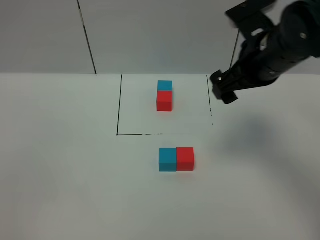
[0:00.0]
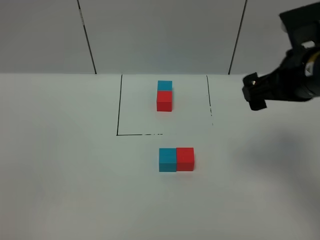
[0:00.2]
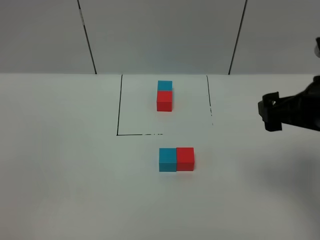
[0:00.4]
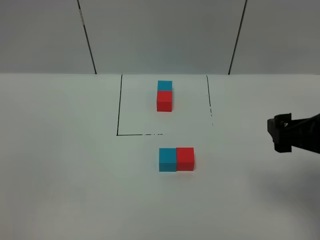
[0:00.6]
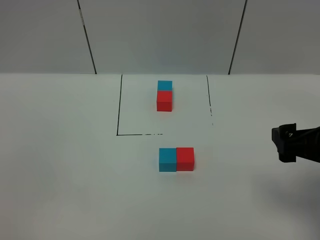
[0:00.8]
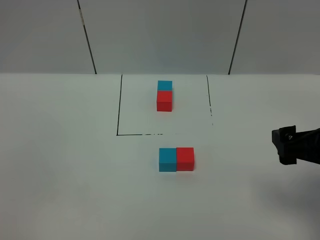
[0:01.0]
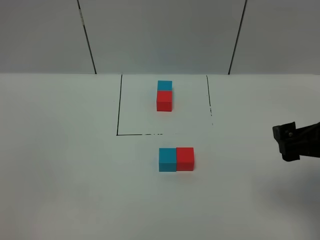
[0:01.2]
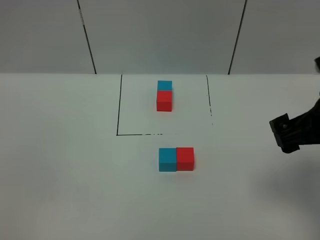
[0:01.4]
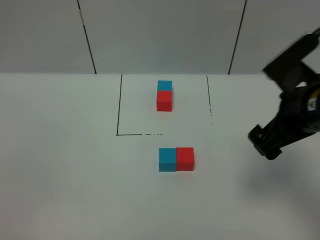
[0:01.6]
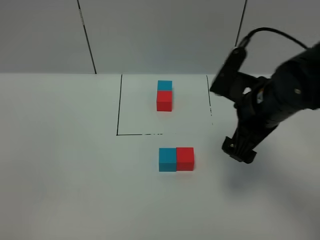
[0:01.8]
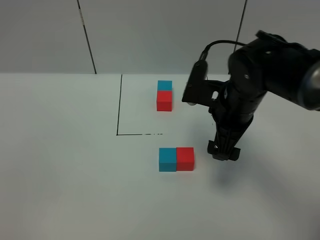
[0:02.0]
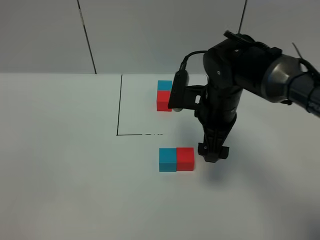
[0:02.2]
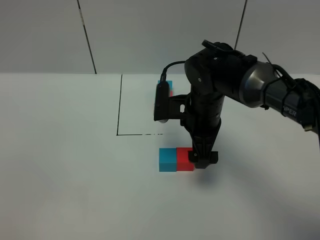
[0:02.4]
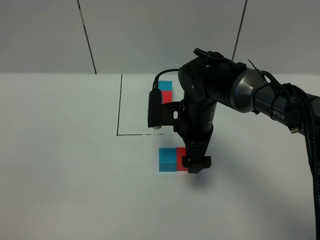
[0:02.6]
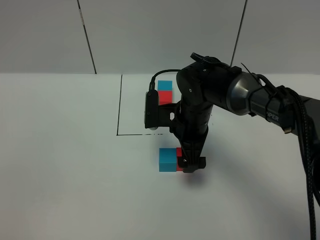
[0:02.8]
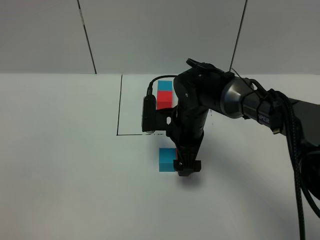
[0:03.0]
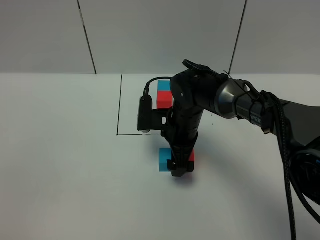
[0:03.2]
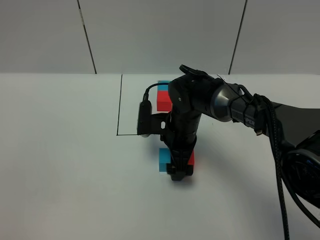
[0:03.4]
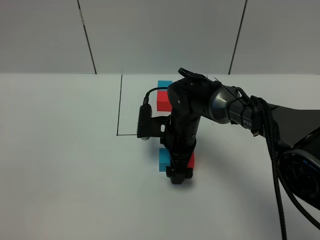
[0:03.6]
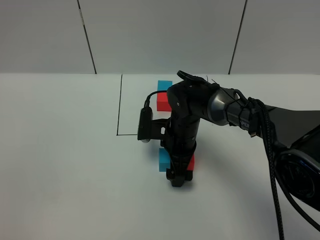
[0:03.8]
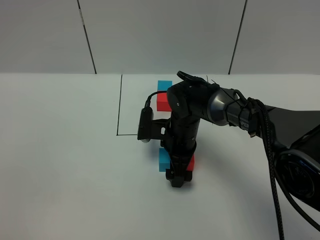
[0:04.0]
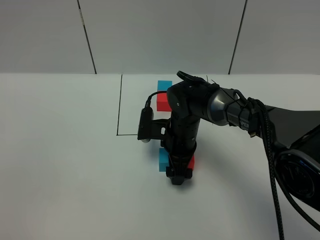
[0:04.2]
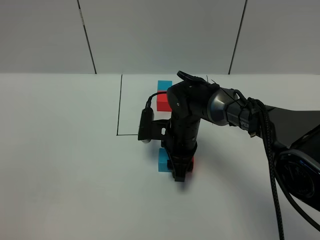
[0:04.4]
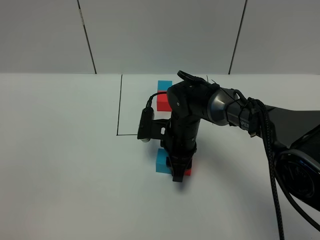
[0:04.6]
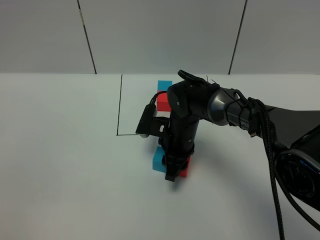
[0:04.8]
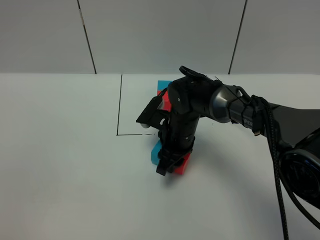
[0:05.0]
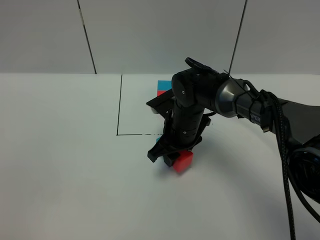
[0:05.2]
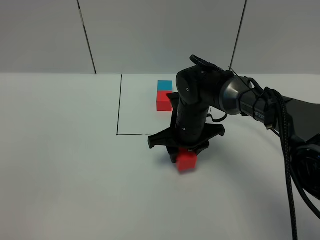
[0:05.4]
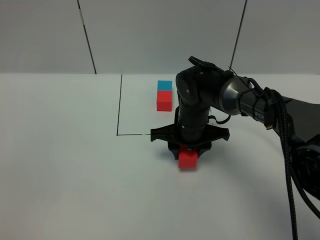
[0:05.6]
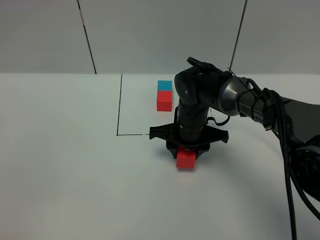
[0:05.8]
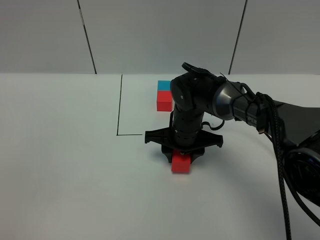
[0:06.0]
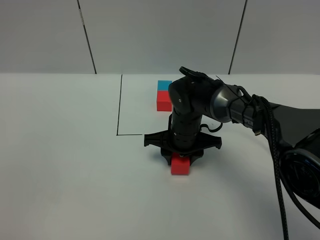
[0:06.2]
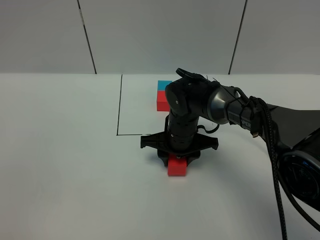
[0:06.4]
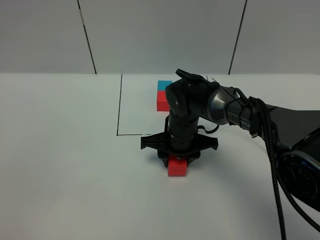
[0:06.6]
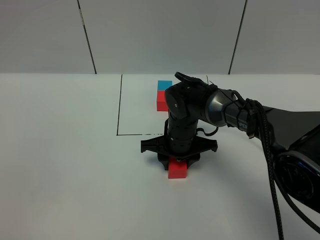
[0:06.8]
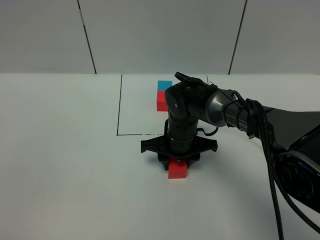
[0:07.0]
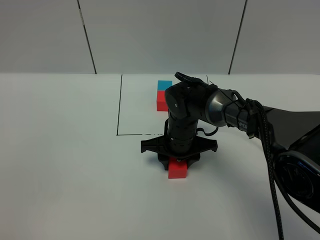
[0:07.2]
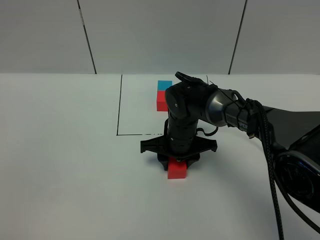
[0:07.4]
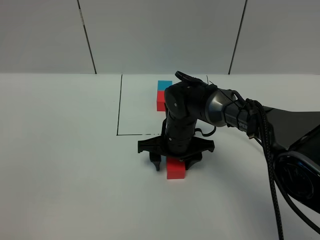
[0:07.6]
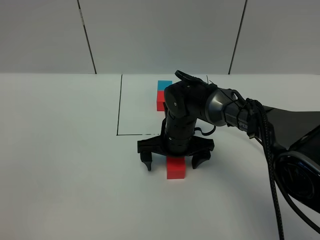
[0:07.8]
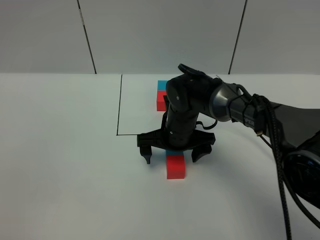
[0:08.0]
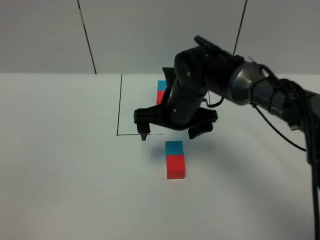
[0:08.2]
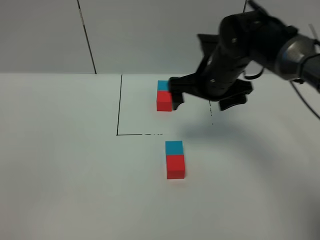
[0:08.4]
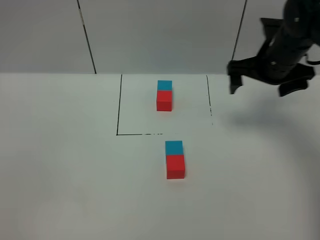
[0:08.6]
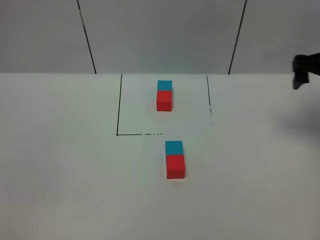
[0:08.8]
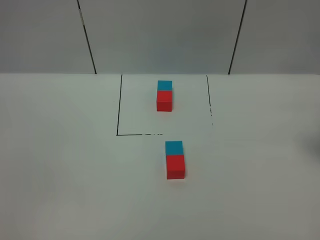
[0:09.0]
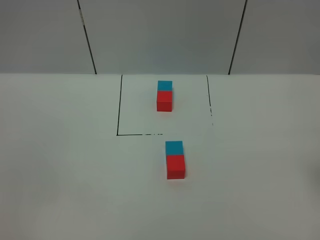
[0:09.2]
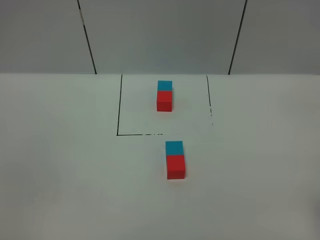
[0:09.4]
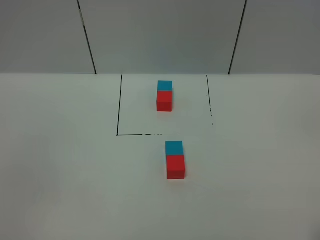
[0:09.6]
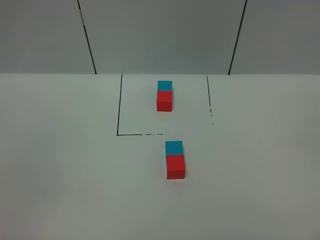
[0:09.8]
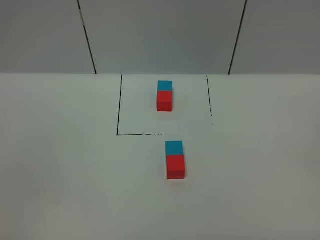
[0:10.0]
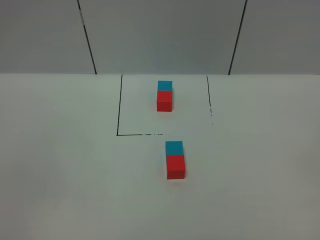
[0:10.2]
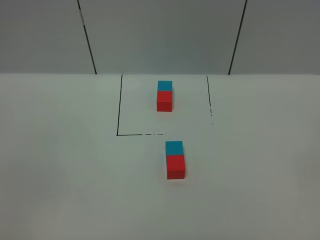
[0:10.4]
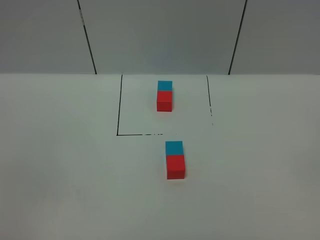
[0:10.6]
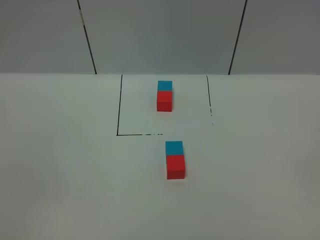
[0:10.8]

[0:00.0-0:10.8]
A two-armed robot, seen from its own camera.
Task of the whole recording: According to the building block template in front, assemble the scattered blocks together.
Step, 0:00.0 to 0:08.0: Adjust the pose of the building blocks.
0:00.0 to 0:01.6: The right gripper travels backward by some 5 cm.
0:01.6 to 0:03.0: The right gripper shifts about 25 cm to the left, downward and forward.
0:03.0 to 0:04.6: The right gripper closes up.
0:06.2 to 0:07.8: The right gripper opens up.
0:07.8 to 0:09.2: The right gripper heads to the right, upward and backward, covering about 40 cm.

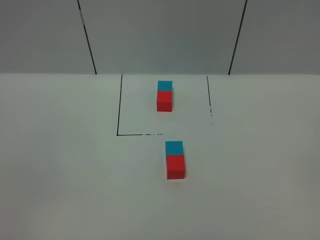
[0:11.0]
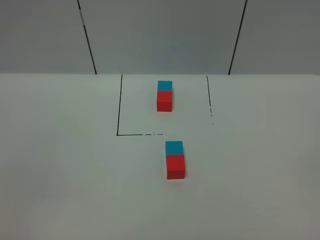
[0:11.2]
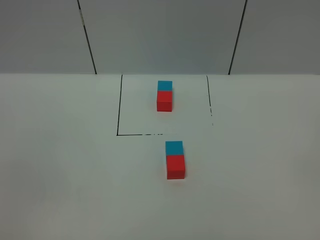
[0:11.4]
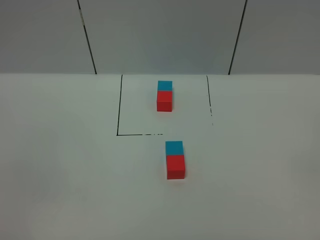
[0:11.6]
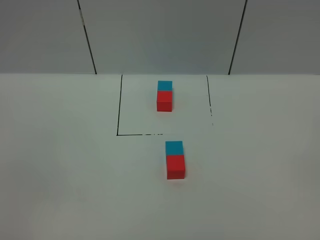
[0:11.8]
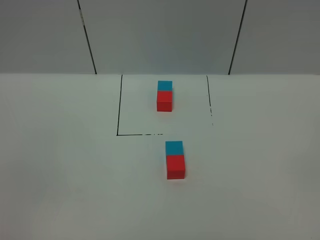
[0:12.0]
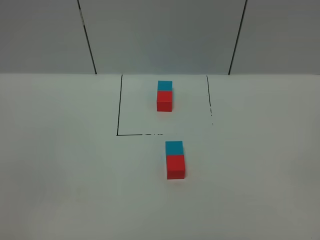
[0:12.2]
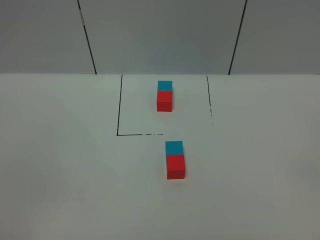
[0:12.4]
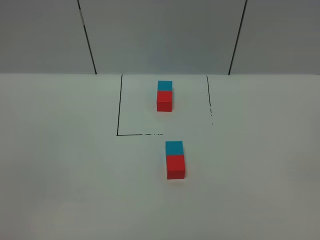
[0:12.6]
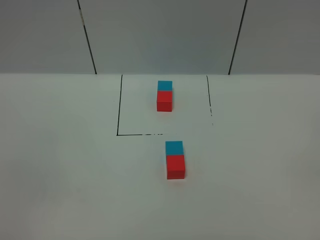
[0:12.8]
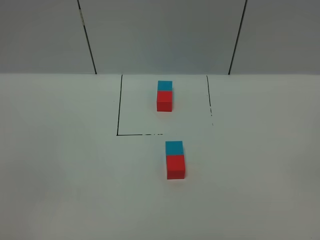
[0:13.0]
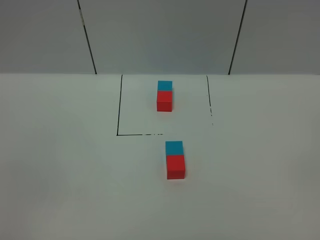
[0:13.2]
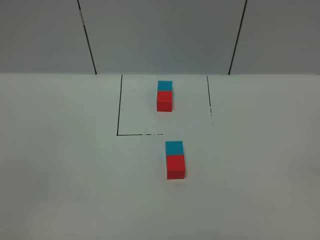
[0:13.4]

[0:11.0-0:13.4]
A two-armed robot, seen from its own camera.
Task of the whole recording: According to the building block template in front, assemble the scattered blocks together.
0:12.2 to 0:13.4: The two grippers keep their place.

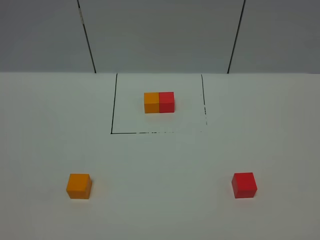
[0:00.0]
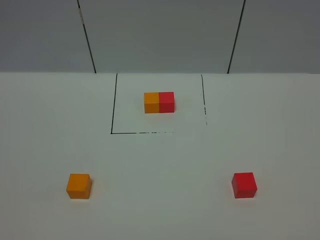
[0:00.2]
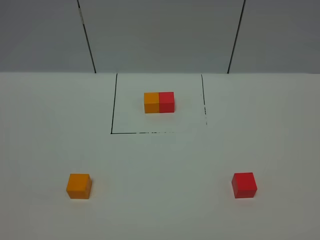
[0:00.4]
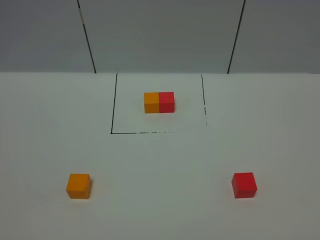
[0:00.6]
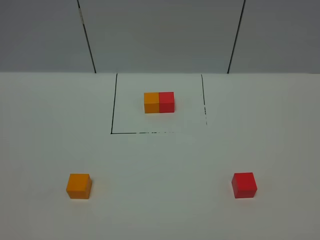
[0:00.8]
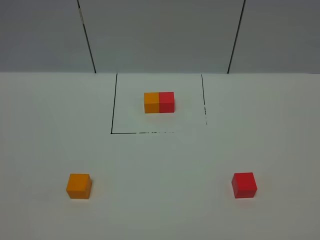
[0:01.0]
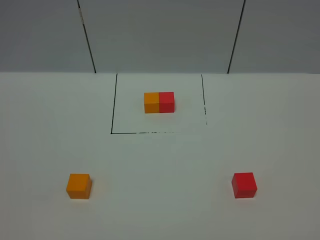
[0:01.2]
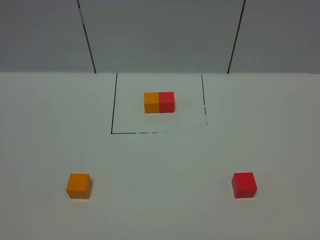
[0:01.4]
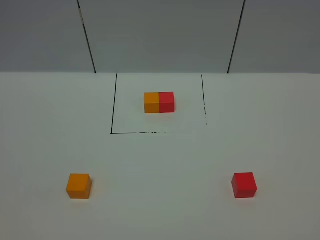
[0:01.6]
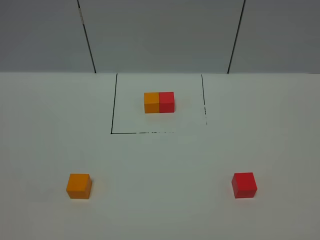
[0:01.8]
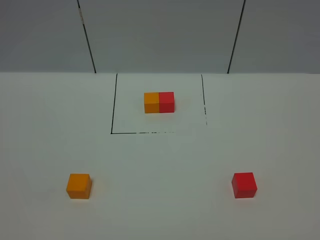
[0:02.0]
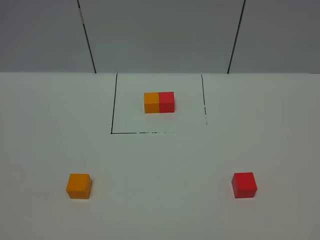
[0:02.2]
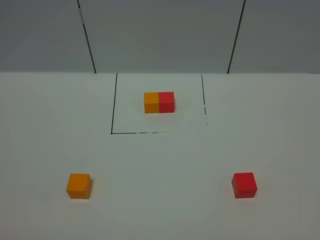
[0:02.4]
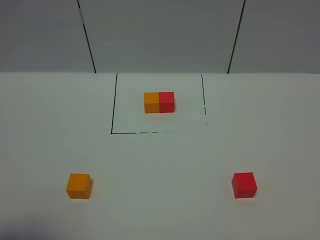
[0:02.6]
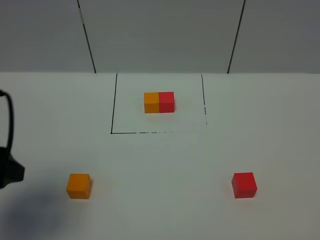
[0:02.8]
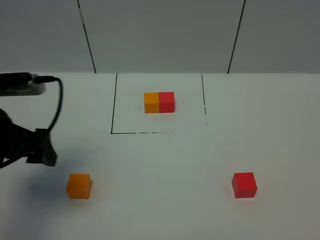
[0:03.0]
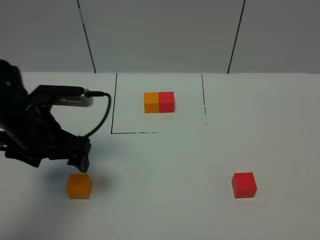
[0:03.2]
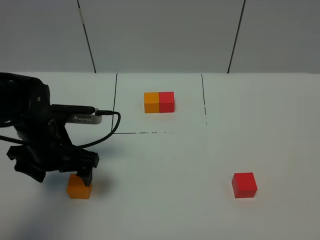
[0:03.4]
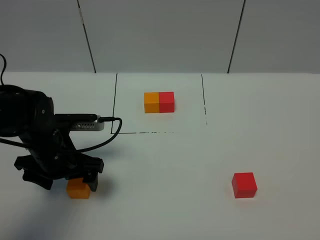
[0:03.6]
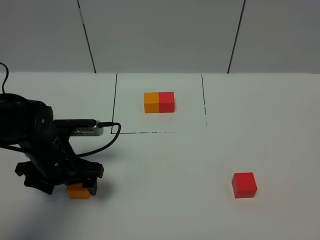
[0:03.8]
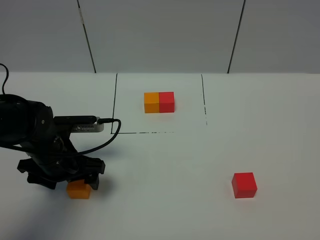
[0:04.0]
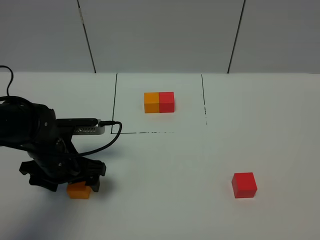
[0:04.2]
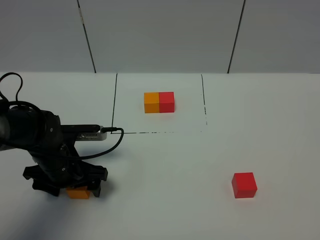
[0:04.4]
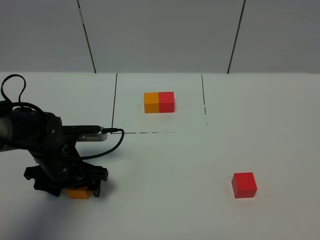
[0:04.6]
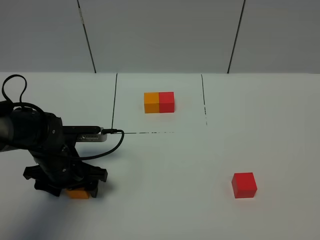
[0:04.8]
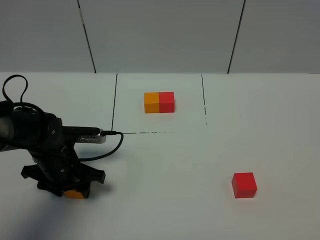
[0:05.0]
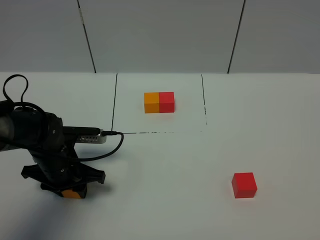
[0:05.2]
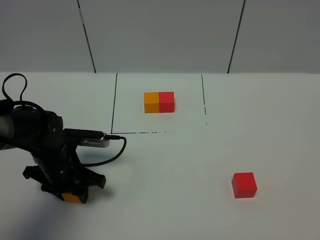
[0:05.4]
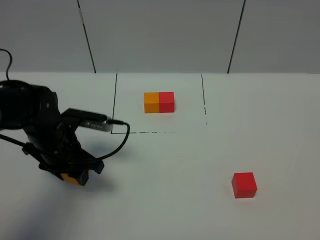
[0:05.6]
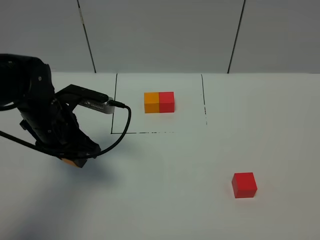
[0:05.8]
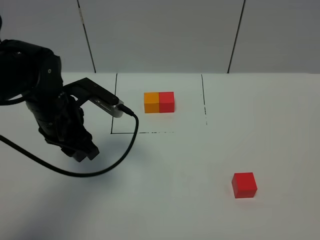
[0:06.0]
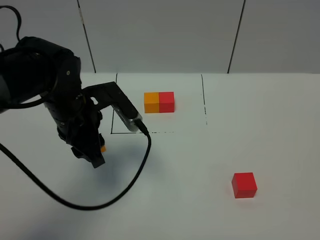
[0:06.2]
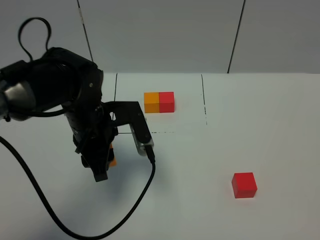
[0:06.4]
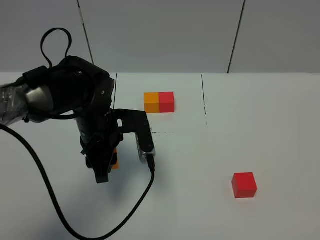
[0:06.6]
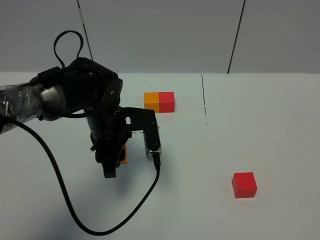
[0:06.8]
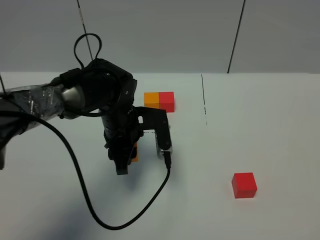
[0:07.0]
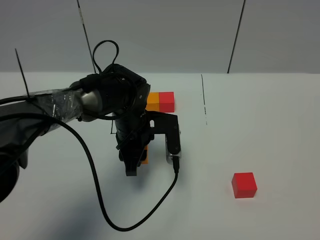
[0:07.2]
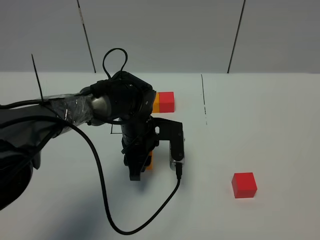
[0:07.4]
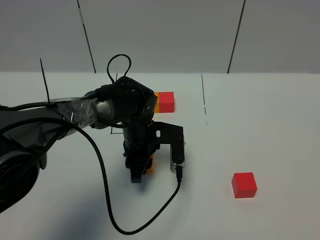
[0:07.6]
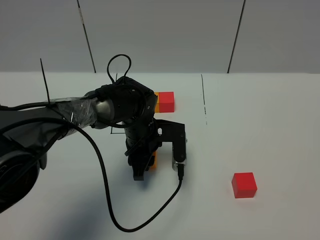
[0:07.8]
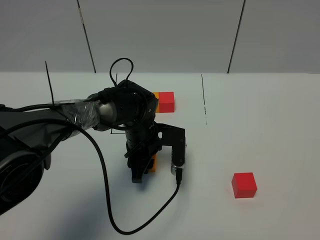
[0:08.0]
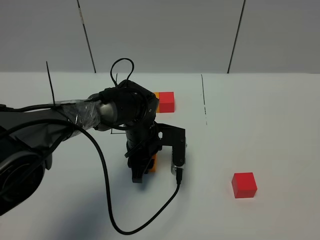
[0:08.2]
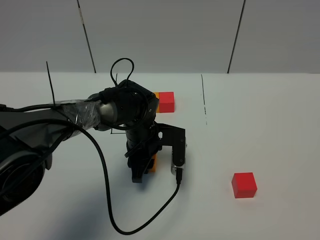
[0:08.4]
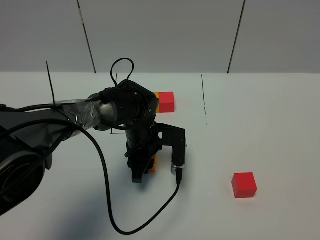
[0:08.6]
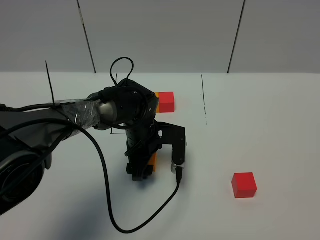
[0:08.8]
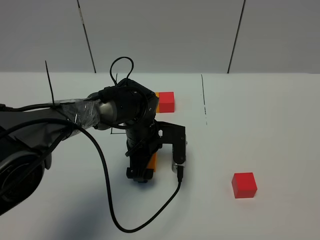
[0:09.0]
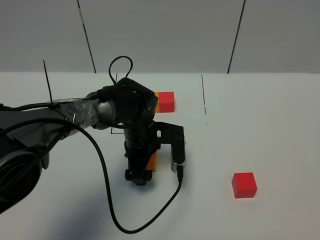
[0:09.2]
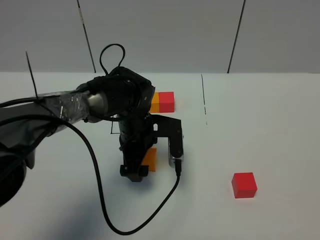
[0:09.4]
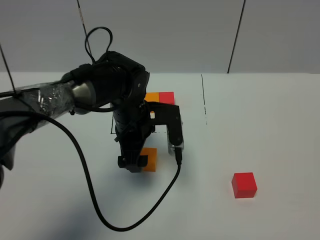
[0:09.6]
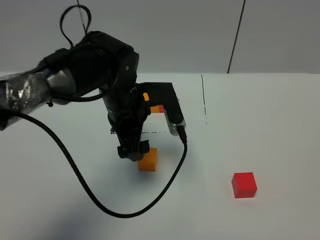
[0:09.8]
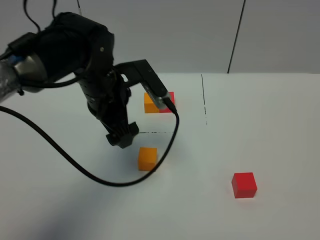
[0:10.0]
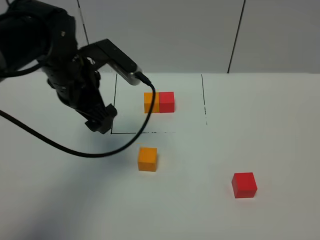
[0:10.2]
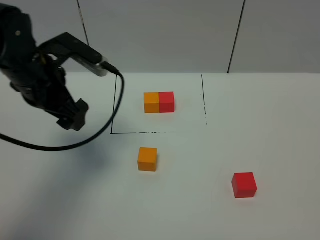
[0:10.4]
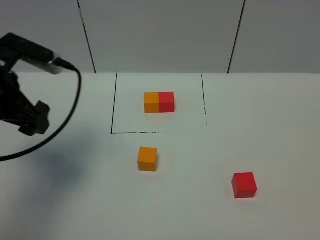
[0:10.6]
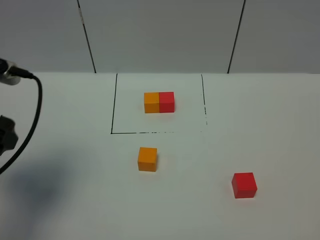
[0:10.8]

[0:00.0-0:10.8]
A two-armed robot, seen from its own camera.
Task of the whole recording: According to the building block template in front, assemble the scattered blocks together.
Step, 0:02.8 to 0:09.4: Put the orange cube in the center of the table.
0:00.0 to 0:01.6: Both grippers stay about where they are.
0:01.6 to 0:03.0: The left gripper is displaced forward by approximately 30 cm, and opens.
0:03.0 to 0:04.6: The left gripper moves downward, about 15 cm.
0:04.6 to 0:06.2: The left gripper shifts approximately 15 cm upward and to the right, and closes.
0:06.2 to 0:07.8: The left gripper is displaced downward, to the right and forward by approximately 15 cm.
0:07.8 to 0:09.2: The left gripper opens.
0:09.2 to 0:10.8: The left gripper moves to the left, upward and backward, about 35 cm.
